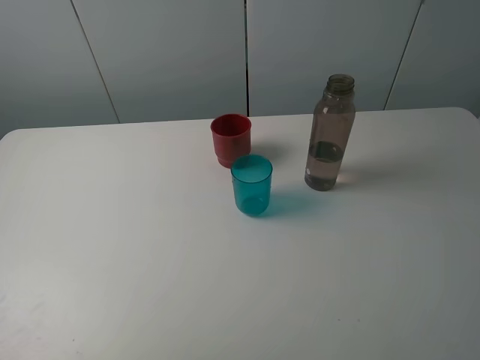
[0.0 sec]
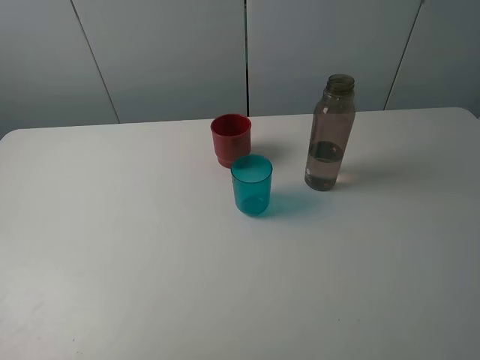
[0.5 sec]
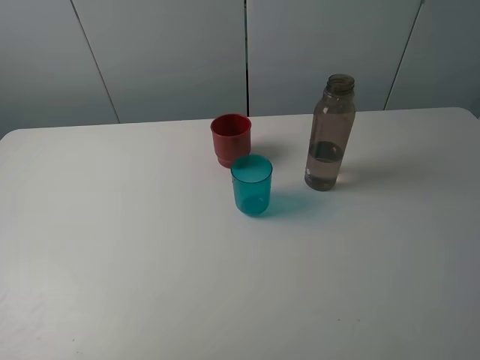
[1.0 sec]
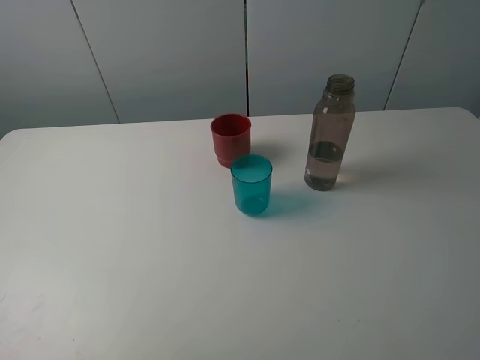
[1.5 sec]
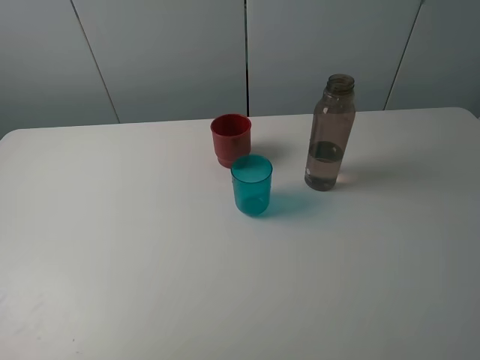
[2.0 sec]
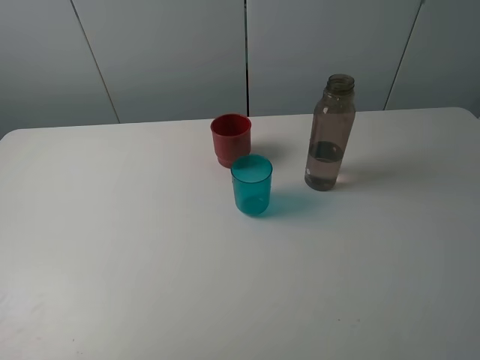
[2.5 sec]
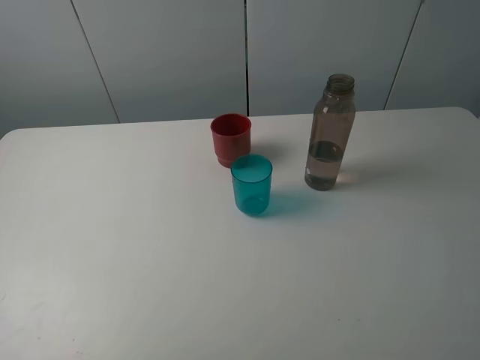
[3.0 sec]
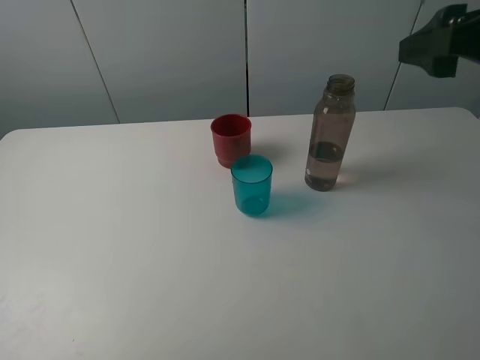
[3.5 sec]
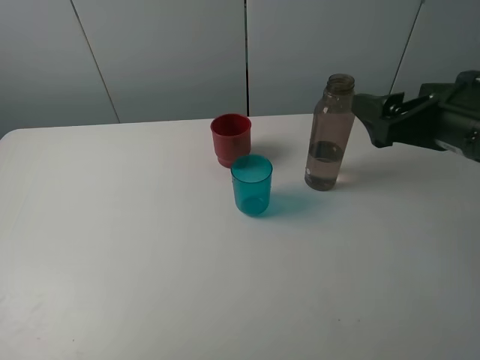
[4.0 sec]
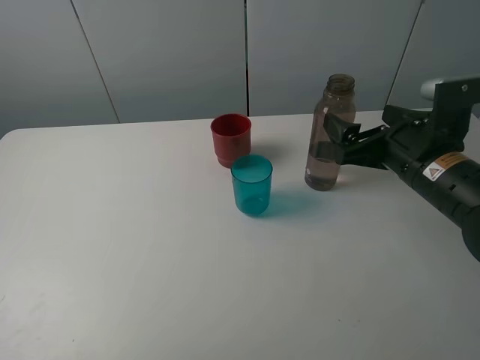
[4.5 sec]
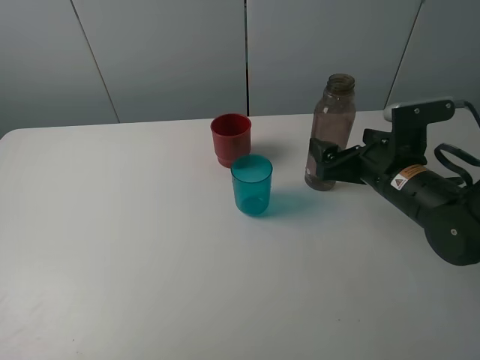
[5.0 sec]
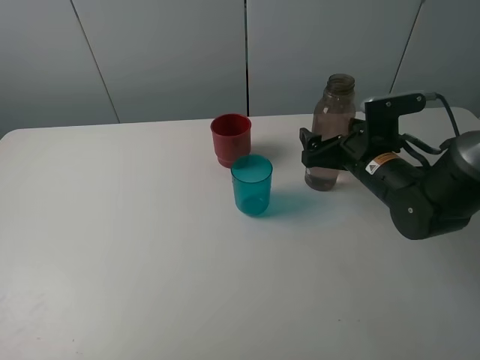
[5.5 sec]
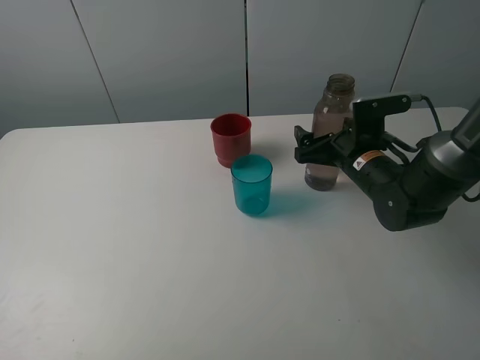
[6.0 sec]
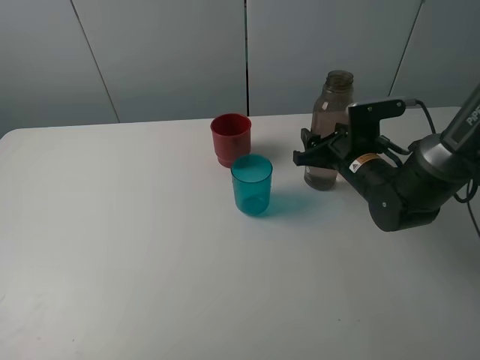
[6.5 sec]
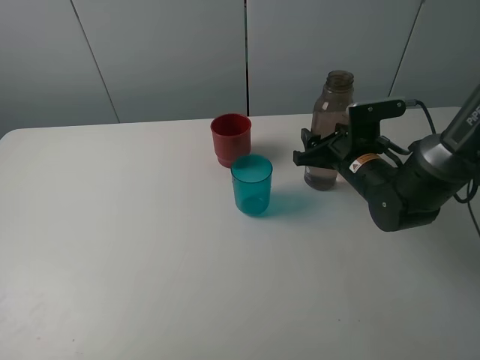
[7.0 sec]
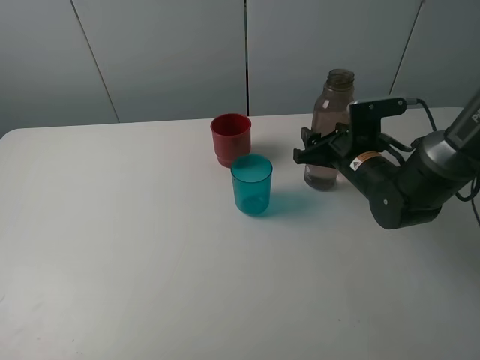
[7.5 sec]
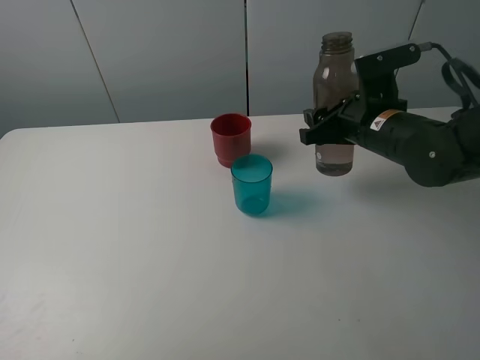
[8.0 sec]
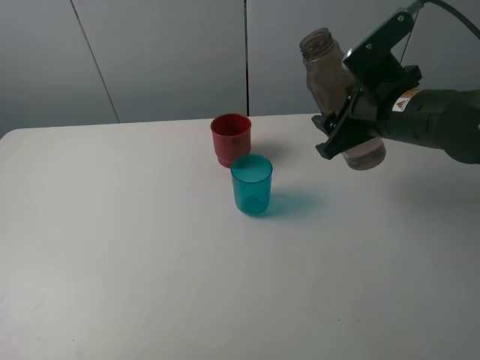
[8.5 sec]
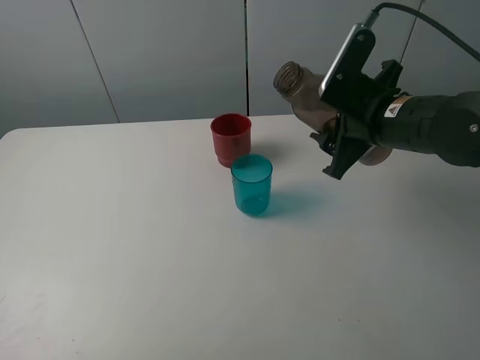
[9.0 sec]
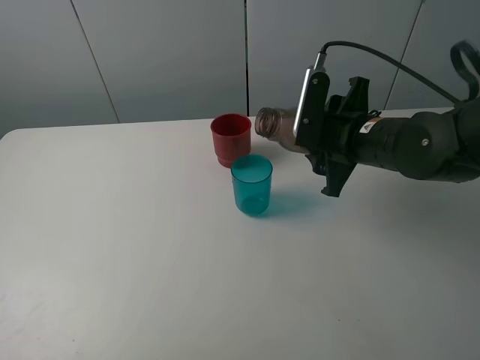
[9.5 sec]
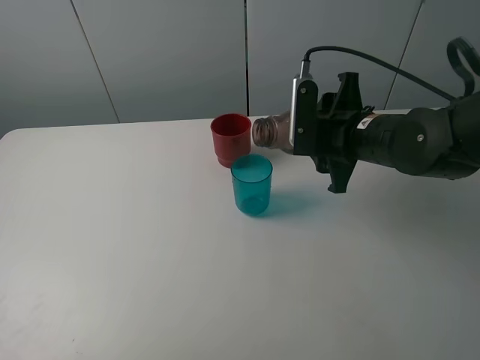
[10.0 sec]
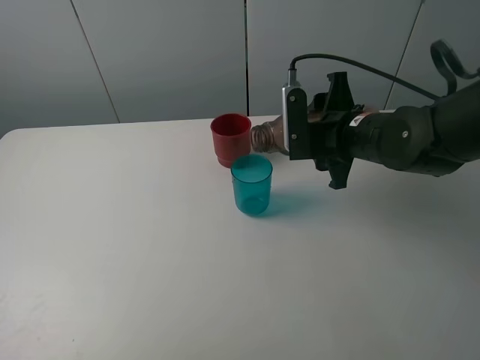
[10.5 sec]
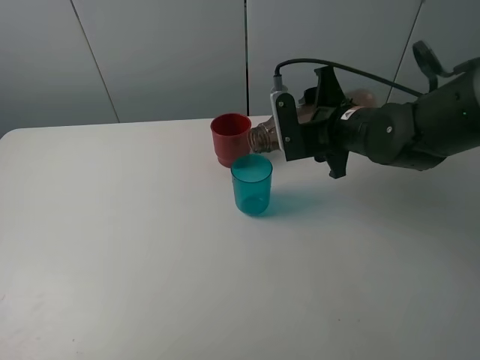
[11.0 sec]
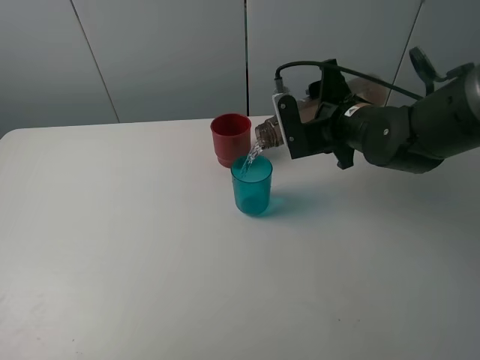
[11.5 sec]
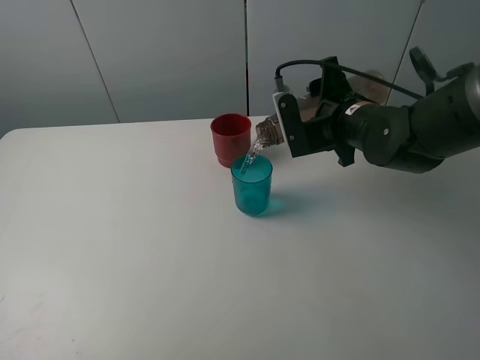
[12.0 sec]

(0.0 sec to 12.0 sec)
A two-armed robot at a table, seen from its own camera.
Task of the whole recording: pick up the bottle and pour water into the cup, then pick up the cup containing water and pour it into another cup.
Step, 0.0 sec - 6.5 sec: Grasp the brown bottle with the right gripper.
0.0 sec - 2.0 sec: The two grippers keep their place.
2.0 sec - 4.0 sec: The right gripper shifts roughly 20 cm forward.
4.0 sec - 6.0 sec: The right gripper heads downward and forward, covering roughly 20 cm.
6.0 sec - 8.0 sec: The right gripper moves upward, roughly 10 cm, and closes.

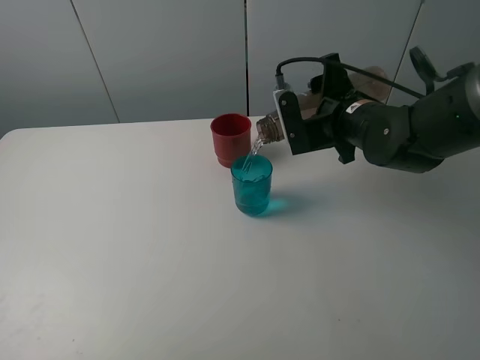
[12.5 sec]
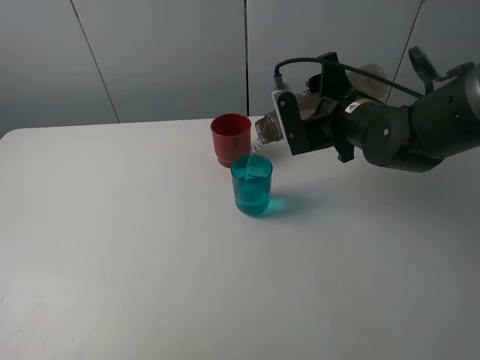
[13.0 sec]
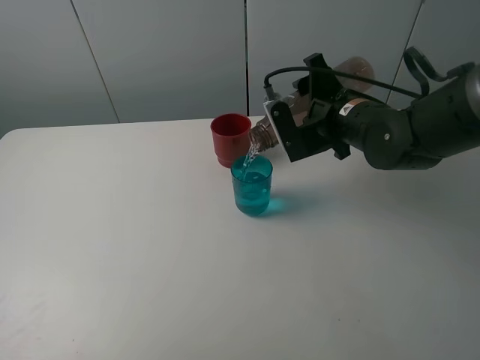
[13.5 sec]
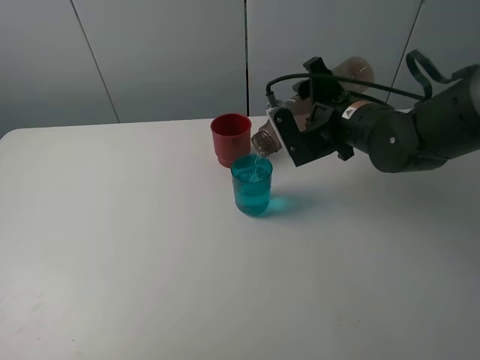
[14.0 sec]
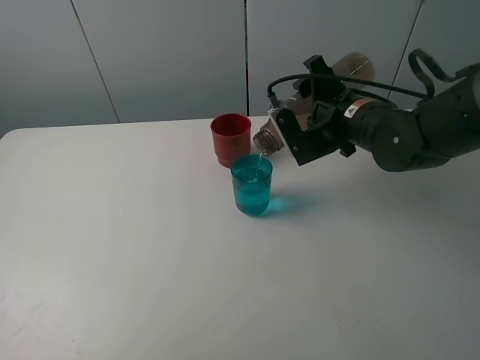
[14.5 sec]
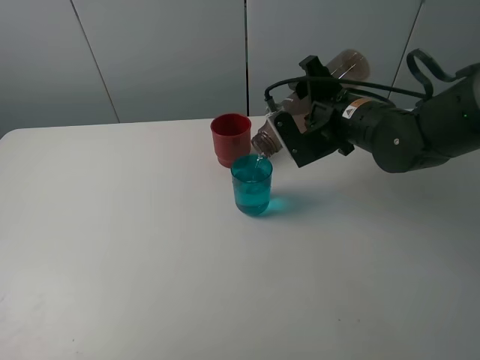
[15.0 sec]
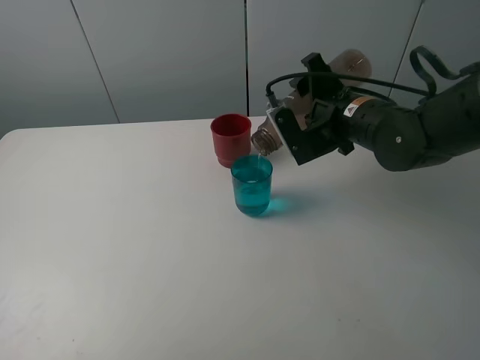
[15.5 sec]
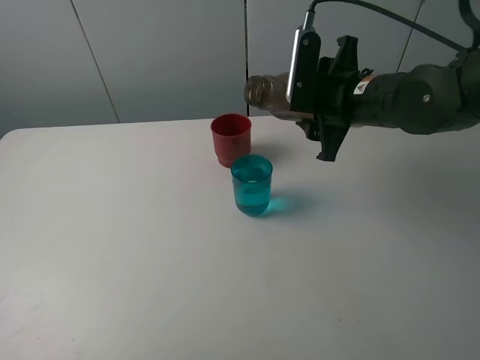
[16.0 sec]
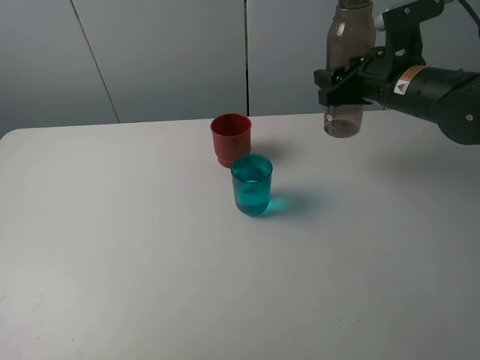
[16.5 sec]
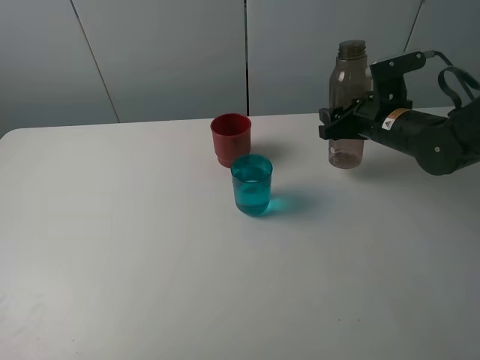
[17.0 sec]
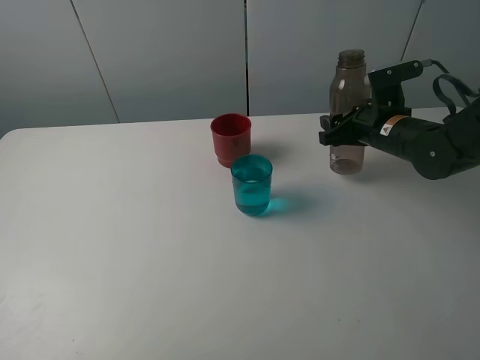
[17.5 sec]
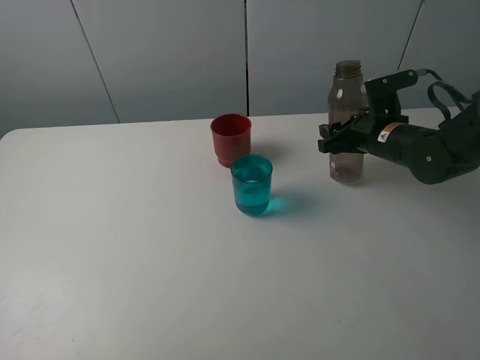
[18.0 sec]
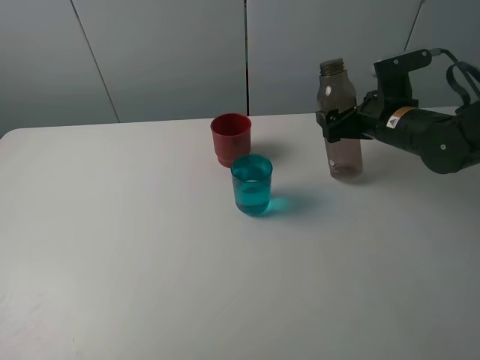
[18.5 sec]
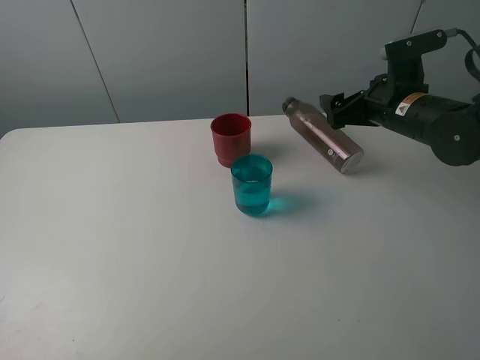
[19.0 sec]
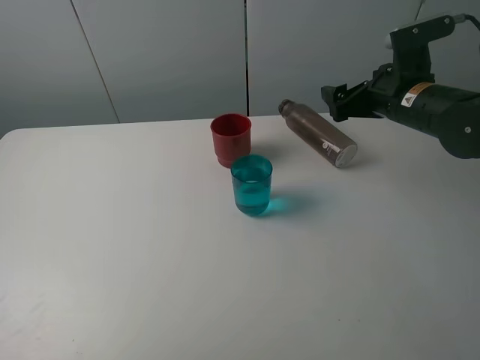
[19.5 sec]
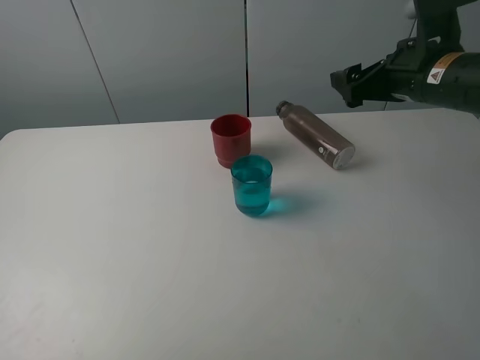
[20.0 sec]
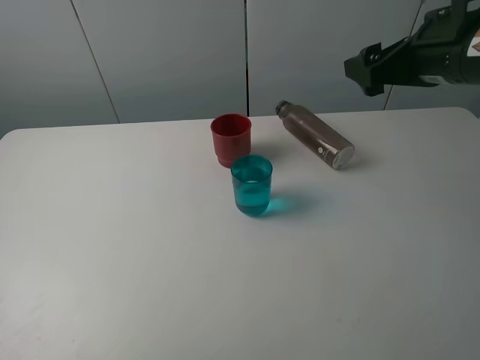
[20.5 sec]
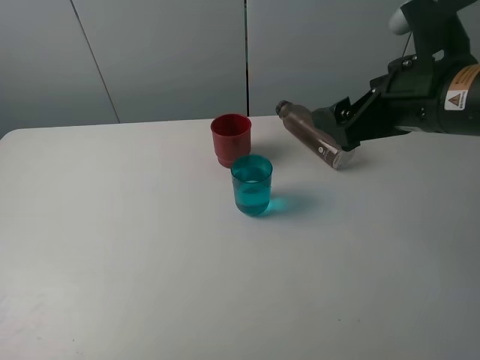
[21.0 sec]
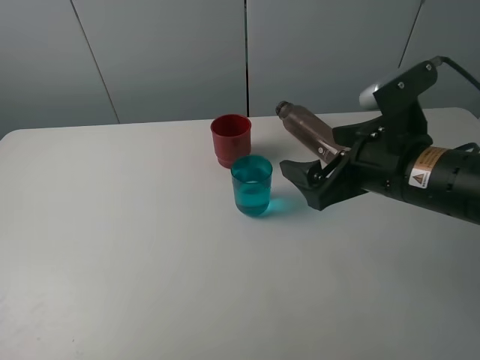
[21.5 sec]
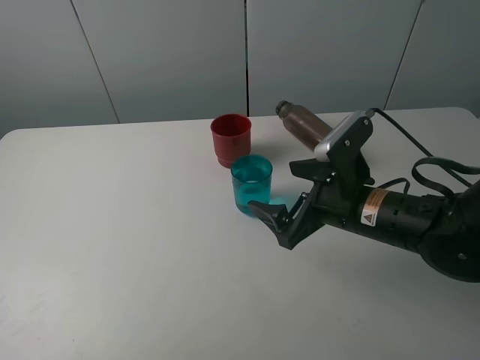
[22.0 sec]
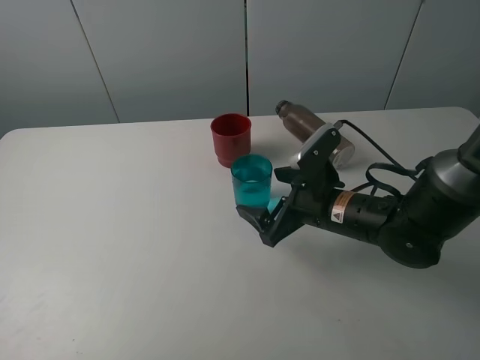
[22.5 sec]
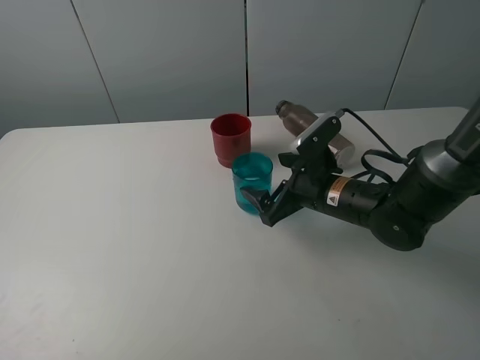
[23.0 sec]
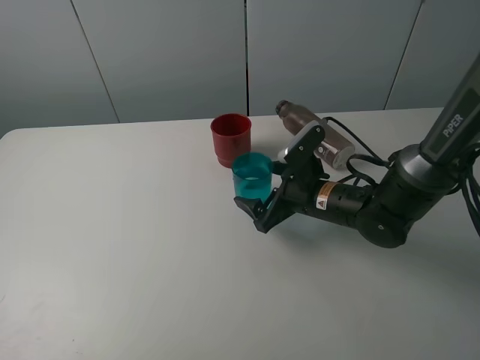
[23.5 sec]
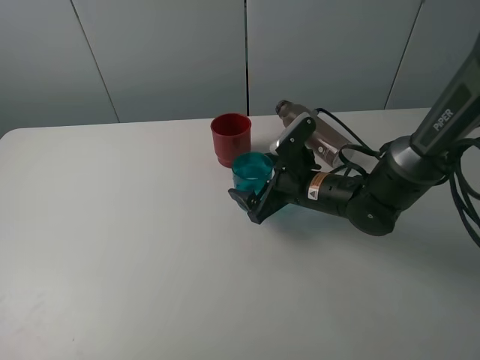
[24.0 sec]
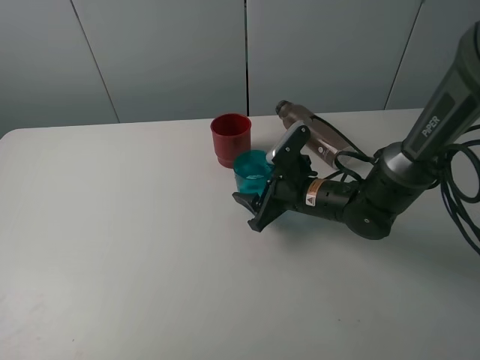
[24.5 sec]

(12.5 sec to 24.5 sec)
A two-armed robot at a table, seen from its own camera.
Task of the whole recording: pick up the bottle and pour water into the cup, then pick up the cup containing water and pour it into another cup.
Step, 12.5 sec - 15.5 sec: Pour water from brown bottle to blue cup with the right gripper.
Step, 16.0 sec - 18.5 sec: Place the brown bottle with the right gripper.
12.5 sec - 14.5 sec: The grippers move only a little.
14.5 sec - 16.5 sec: The right gripper heads to the right, covering approximately 5 cm.
16.5 sec - 18.5 sec: The right gripper heads downward, covering roughly 5 cm, and opens its fingers.
18.5 sec - 20.5 sec: The right gripper moves upward and backward, about 15 cm.
20.5 sec - 22.5 sec: The right gripper goes about 20 cm downward and to the left.
22.5 sec - 24.5 sec: The right gripper shifts roughly 5 cm forward, and closes.

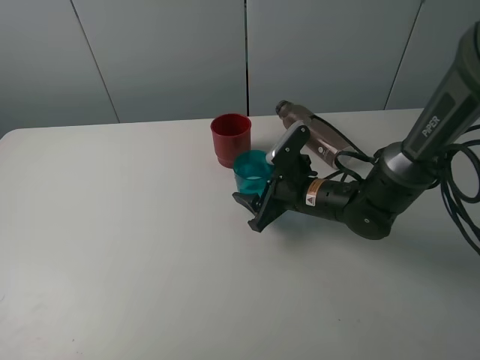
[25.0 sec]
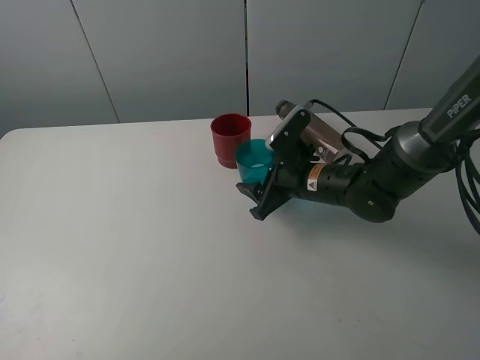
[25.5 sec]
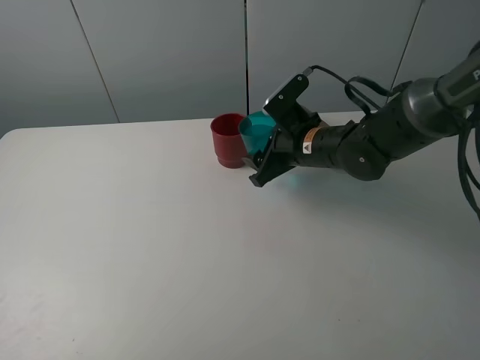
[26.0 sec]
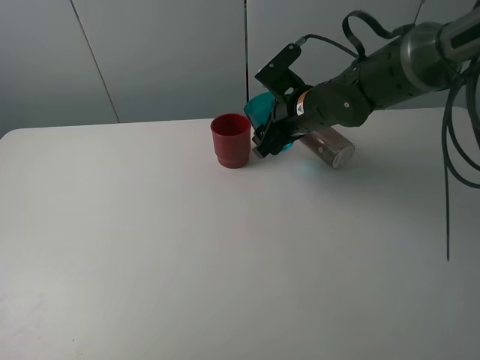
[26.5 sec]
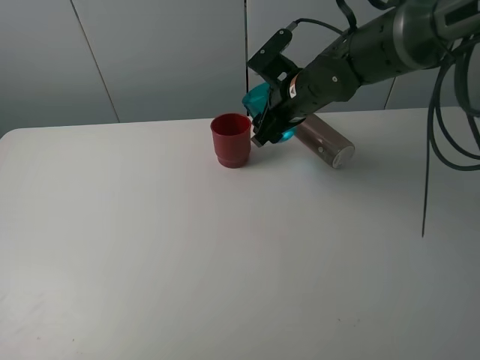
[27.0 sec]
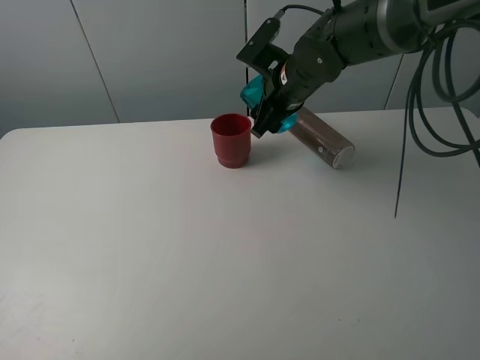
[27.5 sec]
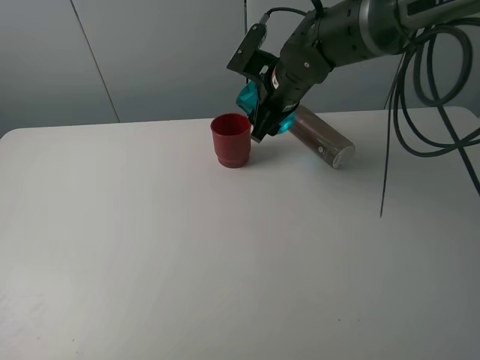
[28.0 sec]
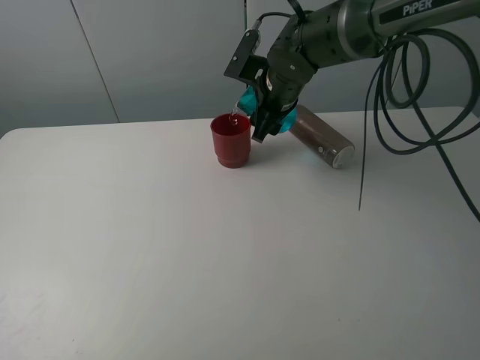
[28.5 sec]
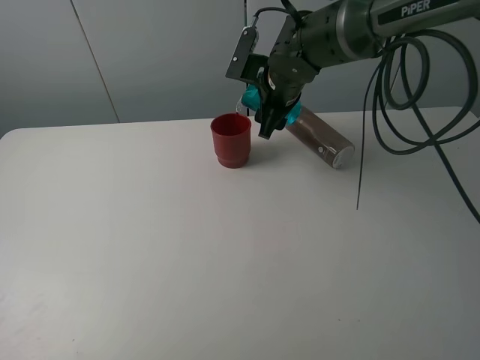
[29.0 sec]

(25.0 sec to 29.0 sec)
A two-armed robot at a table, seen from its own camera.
Task of the whole recording: pick up the bottle and pour water into the cup, then pick up the cup containing water and pour it into another cup.
25.0 sec - 27.0 sec: The right gripper travels upward and forward by approximately 15 cm.
